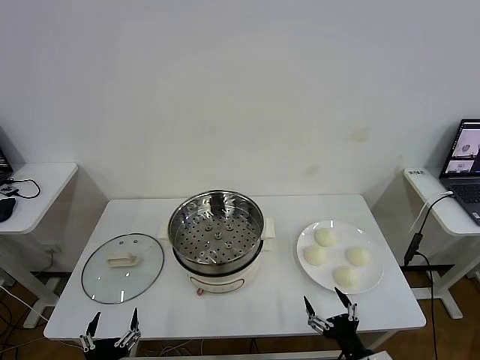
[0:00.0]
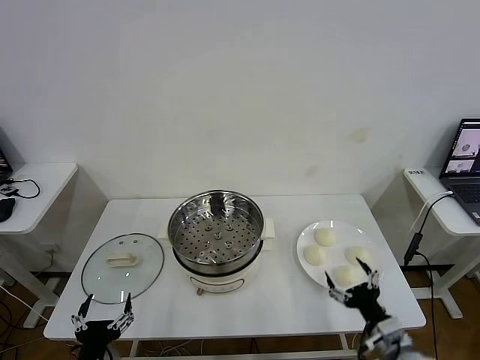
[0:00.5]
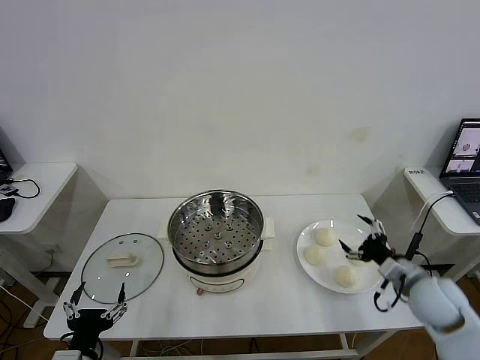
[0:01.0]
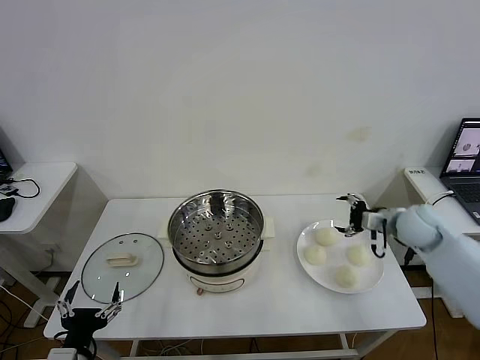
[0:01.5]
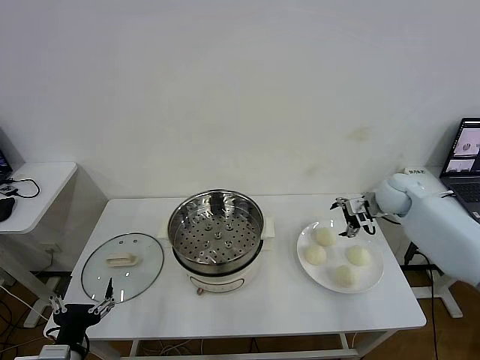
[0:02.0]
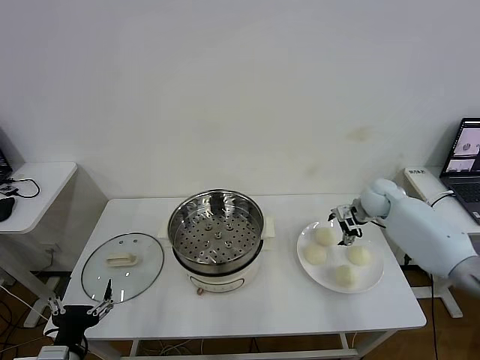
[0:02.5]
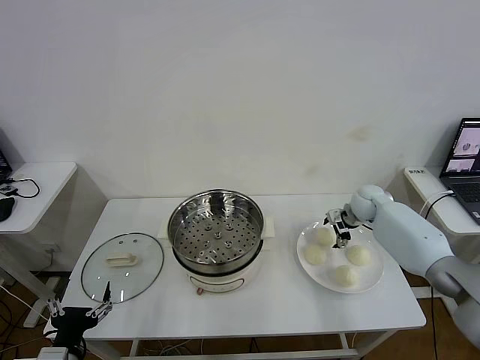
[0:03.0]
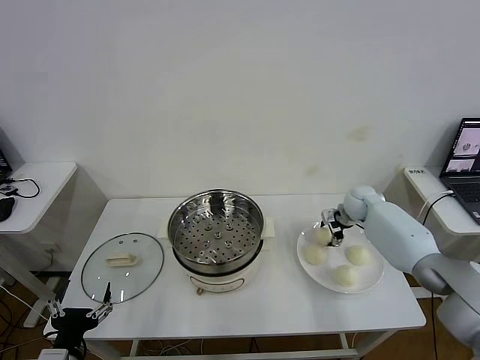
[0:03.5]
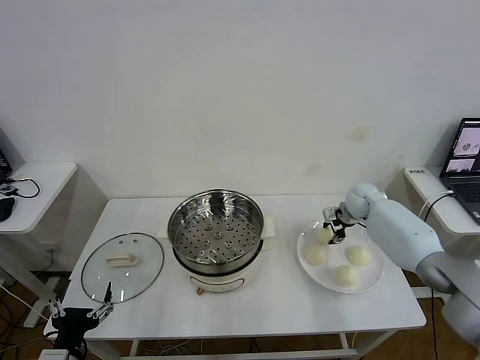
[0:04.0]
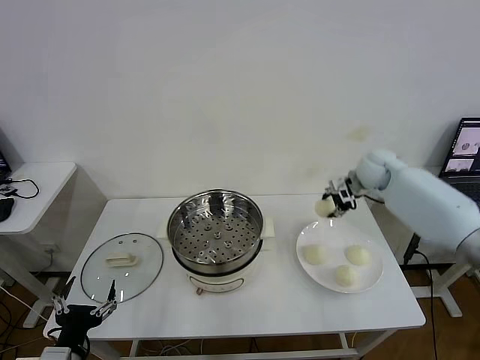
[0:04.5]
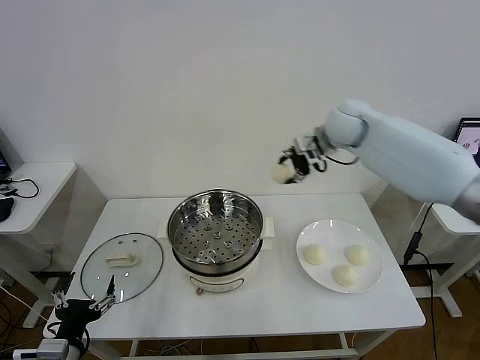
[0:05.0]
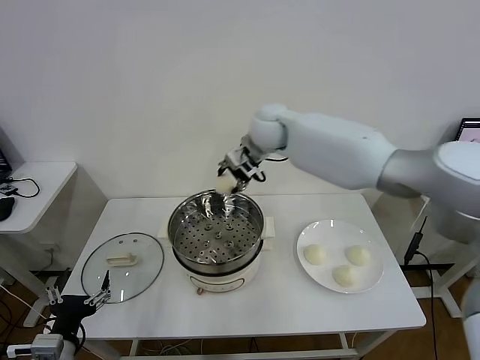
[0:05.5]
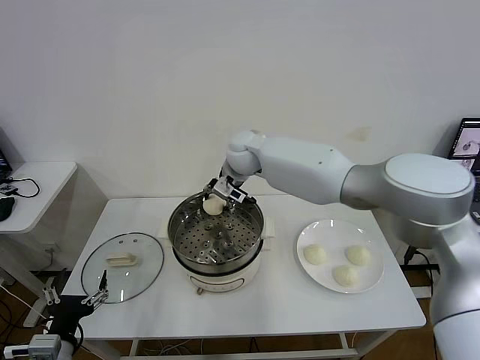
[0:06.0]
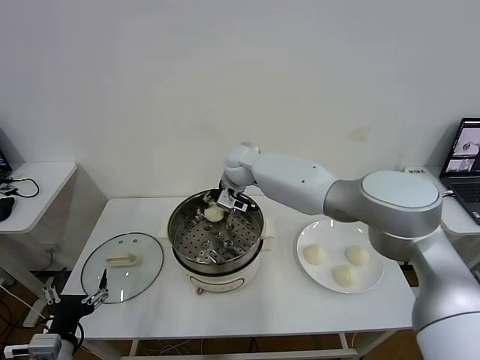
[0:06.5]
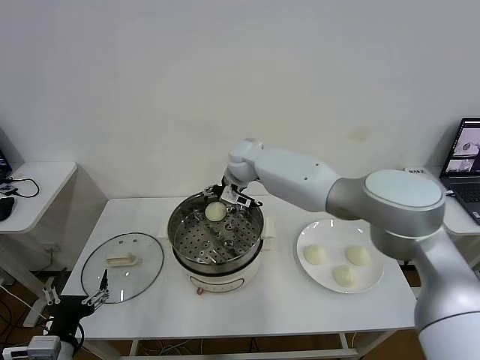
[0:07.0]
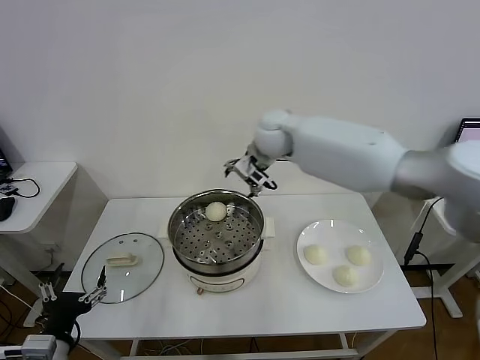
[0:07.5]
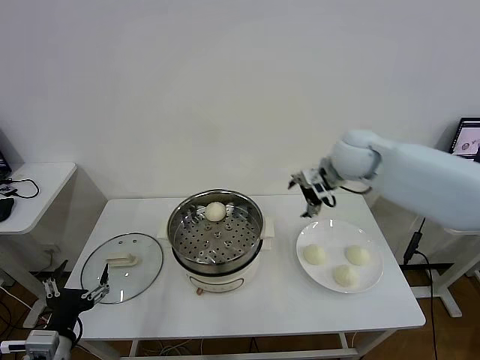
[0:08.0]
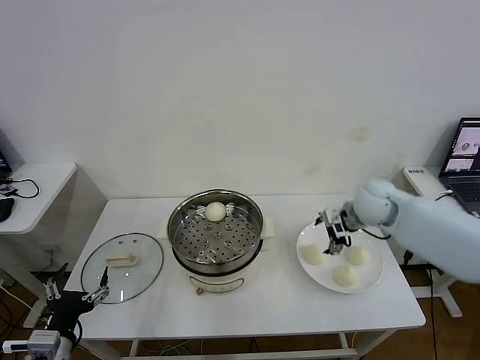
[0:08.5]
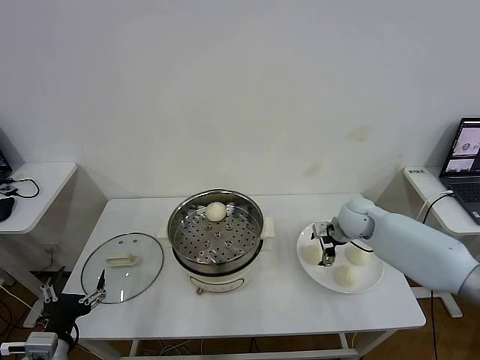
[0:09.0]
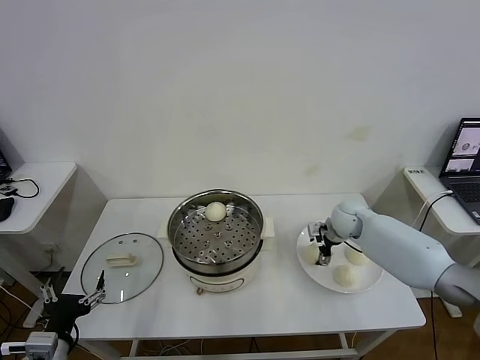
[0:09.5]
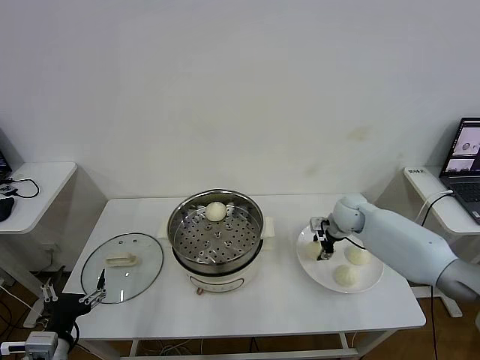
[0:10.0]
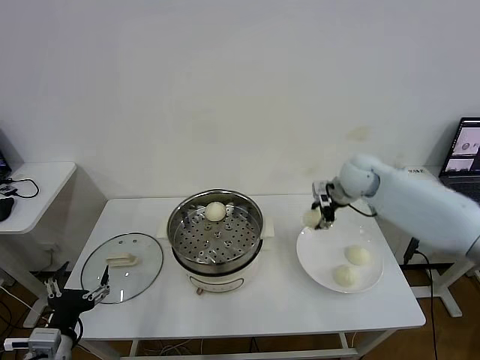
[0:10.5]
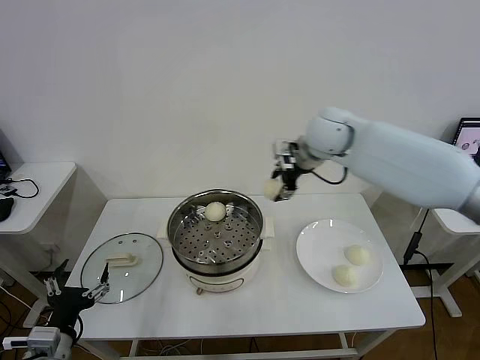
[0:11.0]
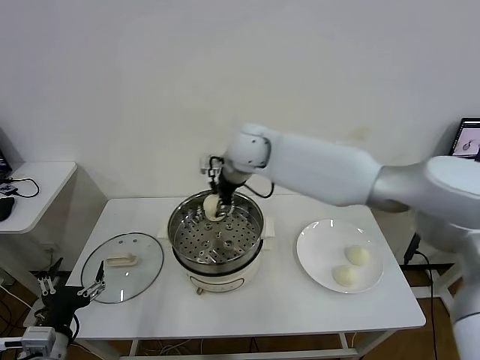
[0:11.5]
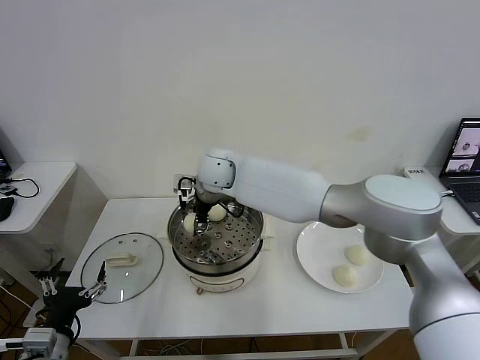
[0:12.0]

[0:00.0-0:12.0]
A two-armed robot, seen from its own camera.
Task of the whole recording: take steamed baozi put them in steamer then cover it.
Step, 0.0 to 3.5 s: Grasp the baozi in the plate with right gripper.
Step, 4.0 to 7.0 s: Place the baozi on the steamer with right gripper.
Step, 7.5 to 9.5 s: Grasp the baozi in the plate with right gripper.
2.0 to 4.0 s: The right gripper goes roughly 10 cm downward and forward, and closes up.
4.0 to 6.0 s: The right gripper heads to the left and upward, covering about 35 cm.
6.0 to 8.0 s: The right gripper shifts approximately 25 cm to the right, and opens up.
8.0 to 10.0 s: The right gripper is displaced downward by roughly 20 cm, and closes.
10.0 to 12.0 s: The right gripper moves to the left and upward, roughly 35 cm.

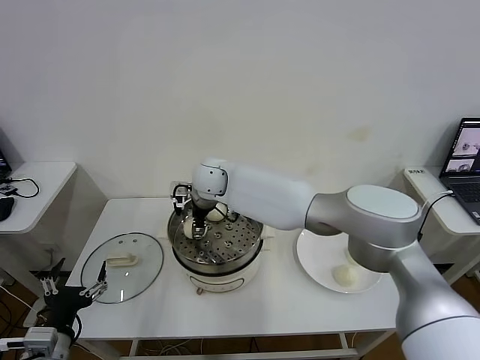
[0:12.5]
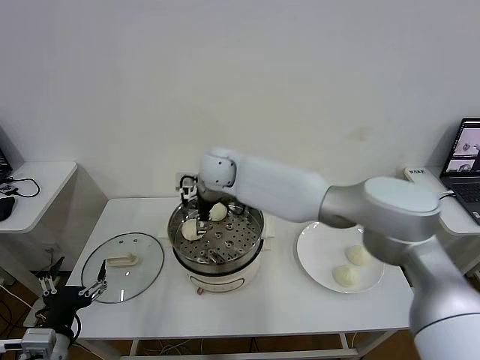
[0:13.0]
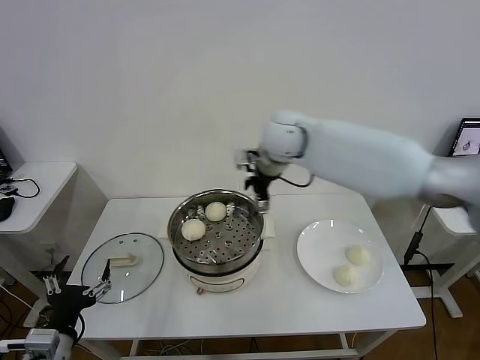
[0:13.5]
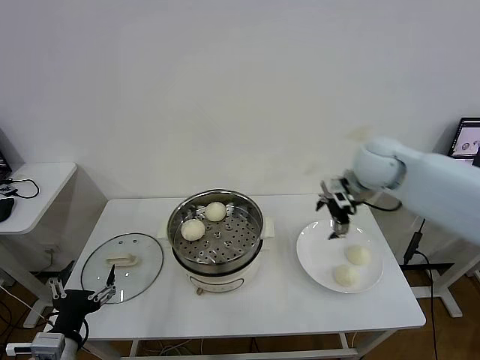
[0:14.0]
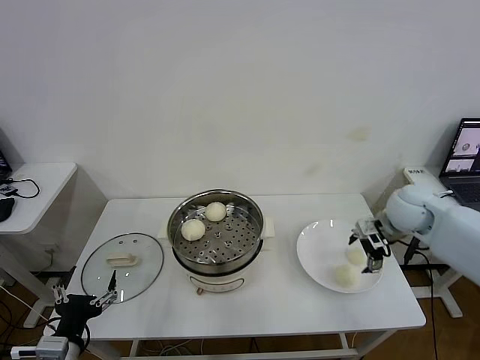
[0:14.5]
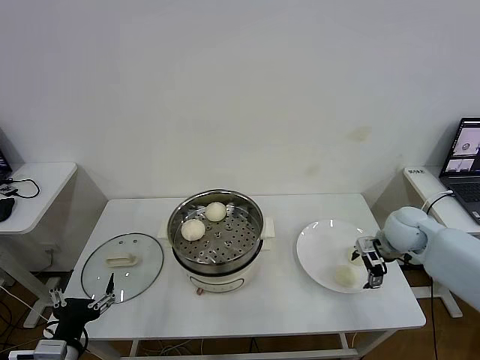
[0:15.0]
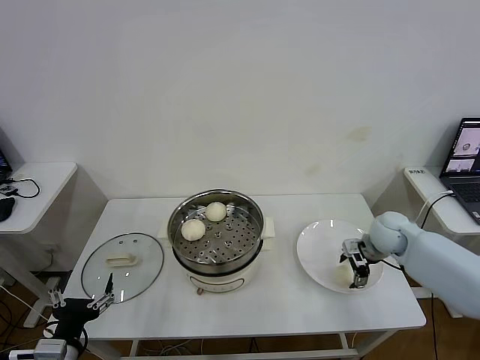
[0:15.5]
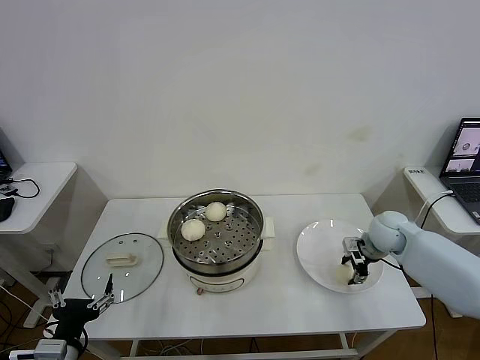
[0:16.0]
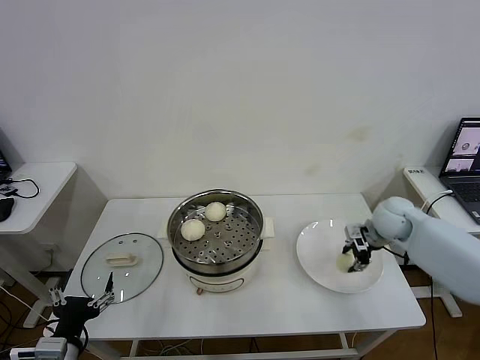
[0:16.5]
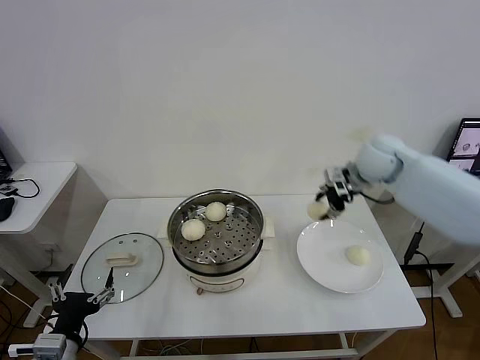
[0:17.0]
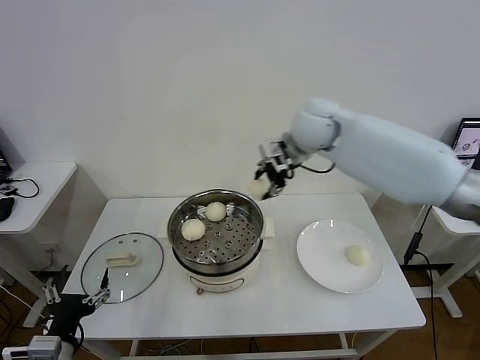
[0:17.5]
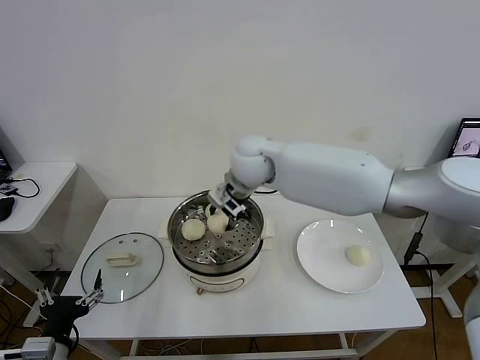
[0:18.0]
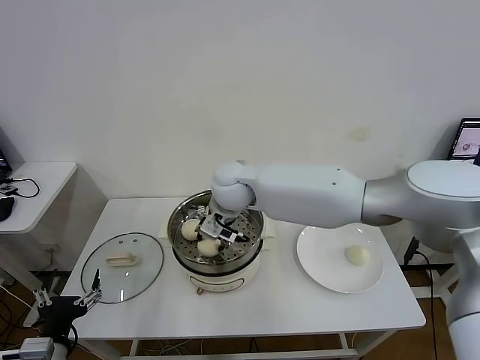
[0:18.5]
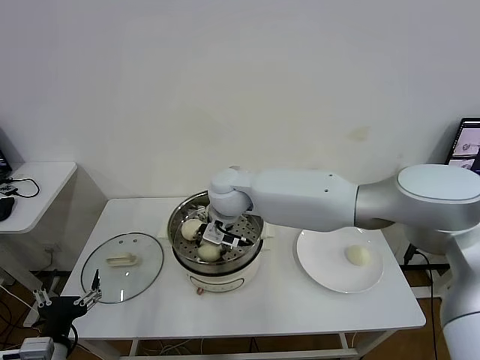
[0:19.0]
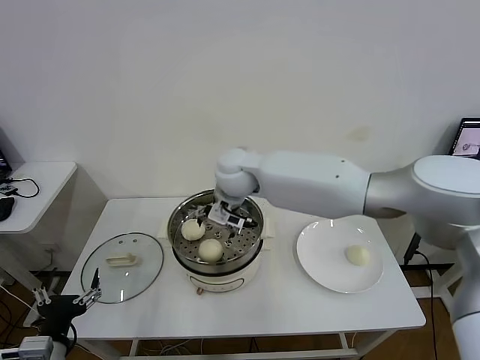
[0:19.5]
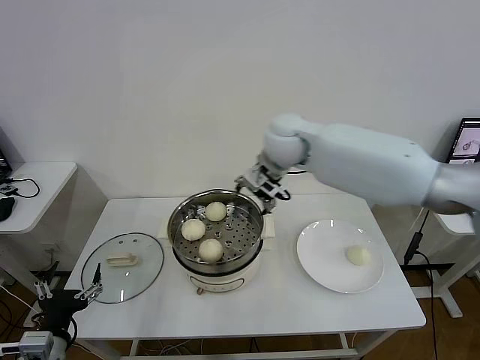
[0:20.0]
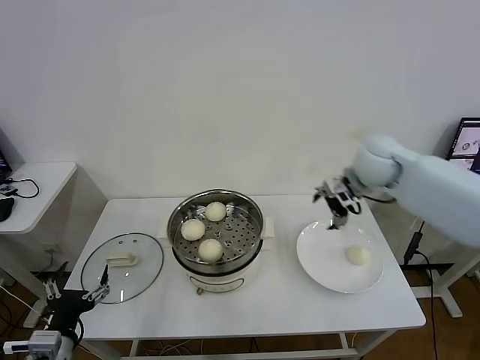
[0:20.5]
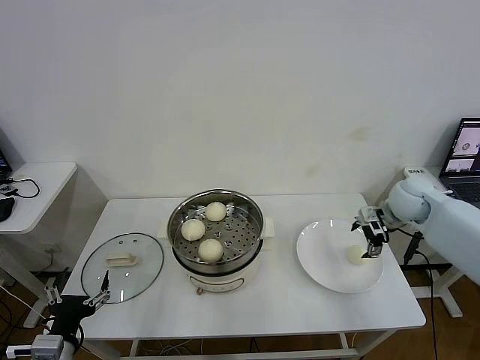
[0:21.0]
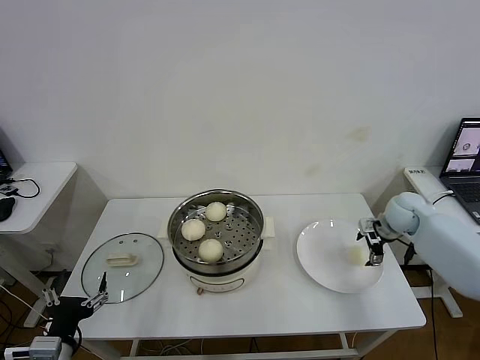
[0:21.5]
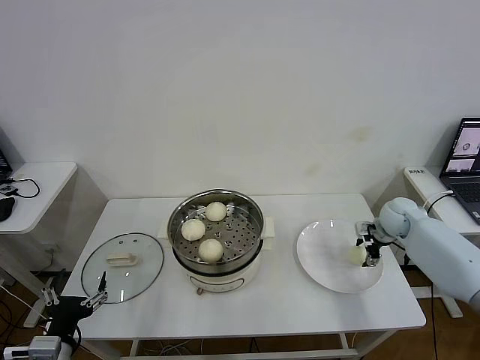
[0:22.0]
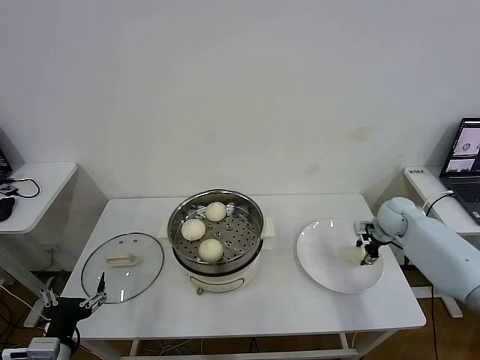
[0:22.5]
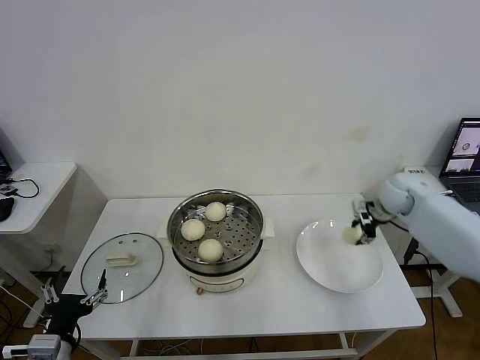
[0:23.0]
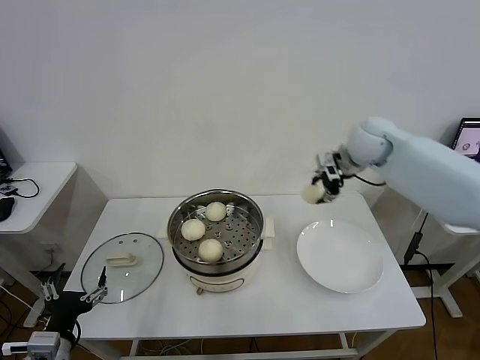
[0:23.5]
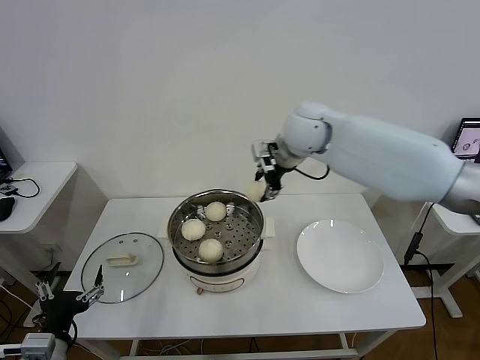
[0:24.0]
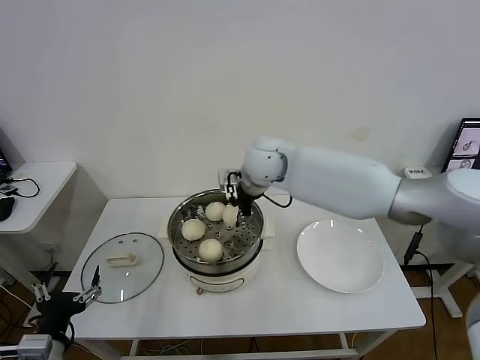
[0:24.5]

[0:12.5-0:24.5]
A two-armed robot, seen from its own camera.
Task of the whole recording: take steamed baozi put them in steamer then cover it.
Step, 13.5 to 16.0 s: Grasp the baozi in the plate with right gripper.
Step, 16.5 to 19.0 s: Place the baozi on the steamer with right gripper.
Step, 19.5 to 22.0 s: Grasp the baozi in the plate with right gripper.
12.5 to 14.5 s: The right gripper moves to the right, some 40 cm, and opens.
14.5 to 16.5 s: The right gripper is displaced downward by some 5 cm, and closes.
16.5 to 18.5 s: The right gripper travels to the left by about 40 cm.
18.5 to 20.5 s: The right gripper travels to the right by roughly 30 cm, and opens up.
20.5 to 22.5 s: The right gripper is displaced downward and to the right by roughly 25 cm, and closes.
22.5 to 24.5 s: The right gripper is displaced to the left and upward by about 40 cm.

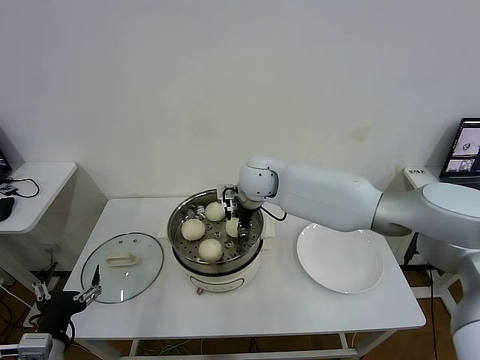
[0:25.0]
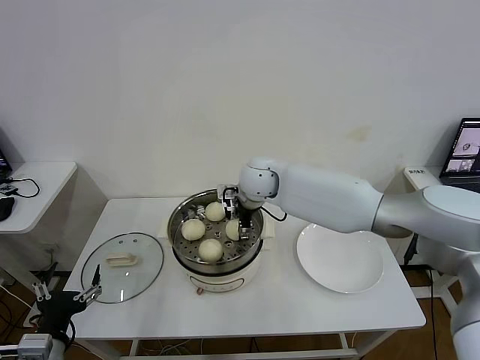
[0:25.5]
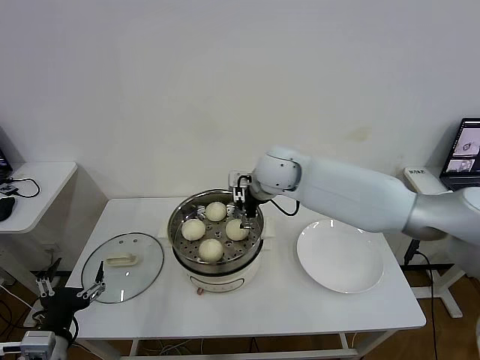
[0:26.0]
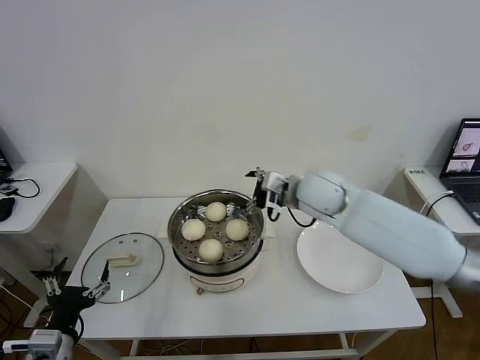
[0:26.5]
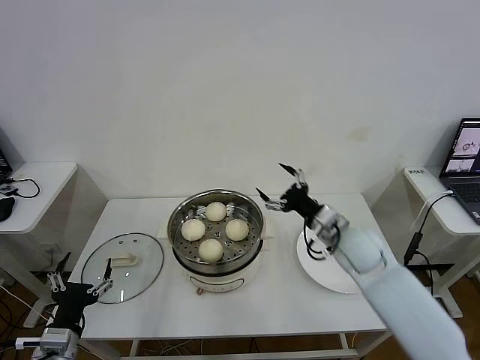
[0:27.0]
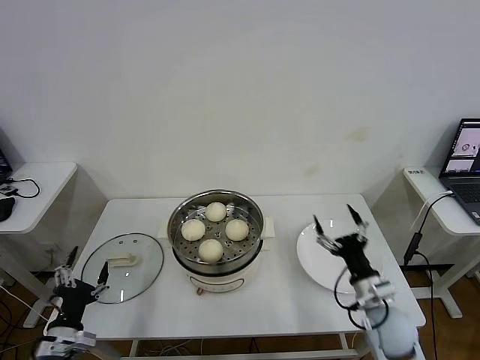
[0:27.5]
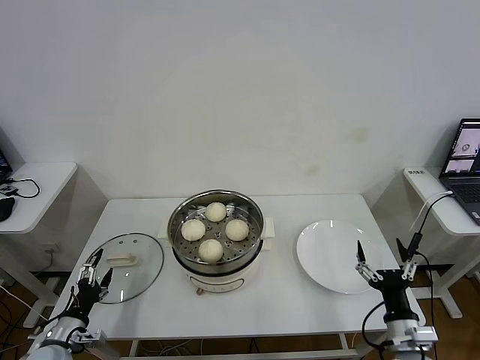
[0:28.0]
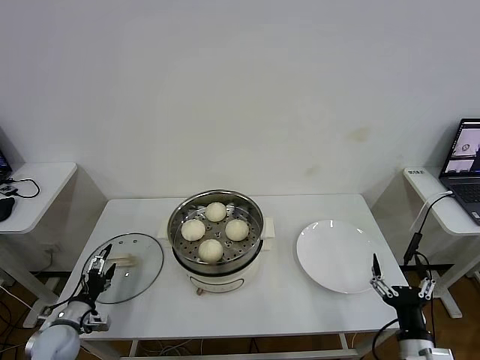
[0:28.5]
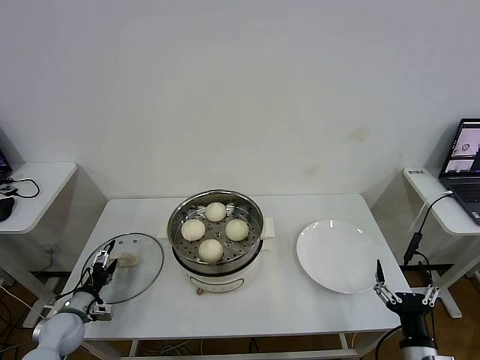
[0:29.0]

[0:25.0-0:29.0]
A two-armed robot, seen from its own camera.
Task of the whole recording: take steamed baozi put them in steamer then cover it.
25.0 to 27.0 s: The right gripper shifts some 25 cm to the right and backward, and opens up.
27.0 to 29.0 s: The right gripper is displaced backward and downward by approximately 30 cm; the left gripper travels forward, downward and to the left by some 20 cm.
